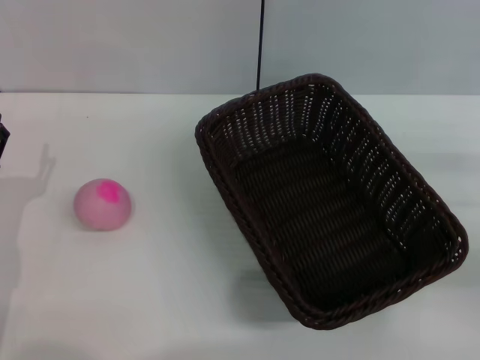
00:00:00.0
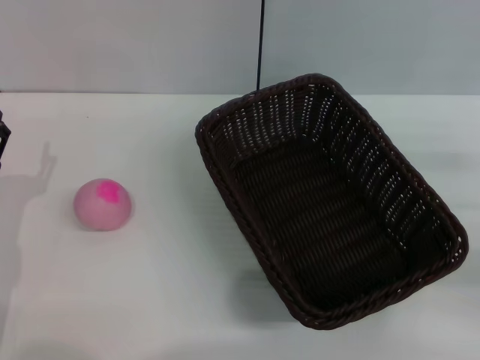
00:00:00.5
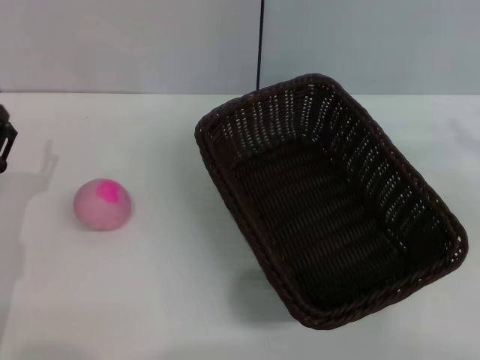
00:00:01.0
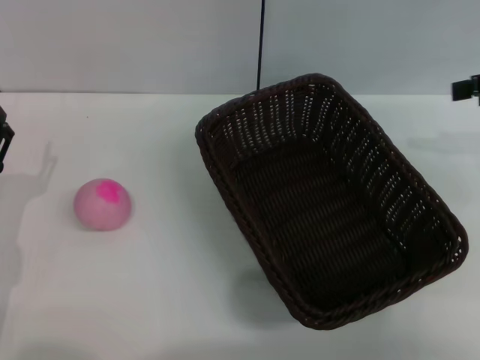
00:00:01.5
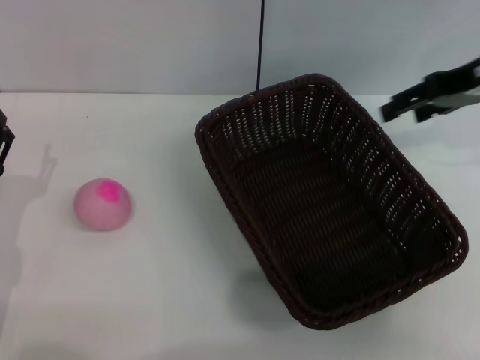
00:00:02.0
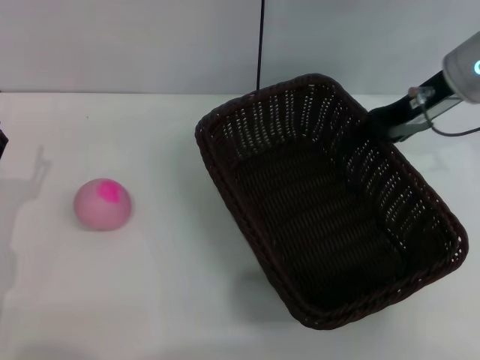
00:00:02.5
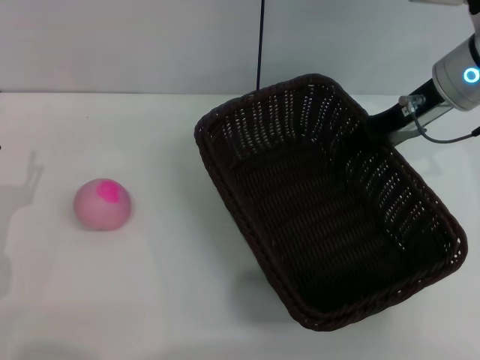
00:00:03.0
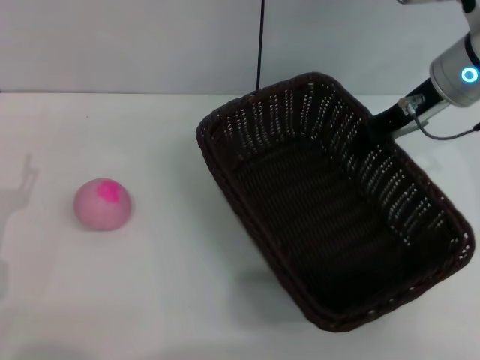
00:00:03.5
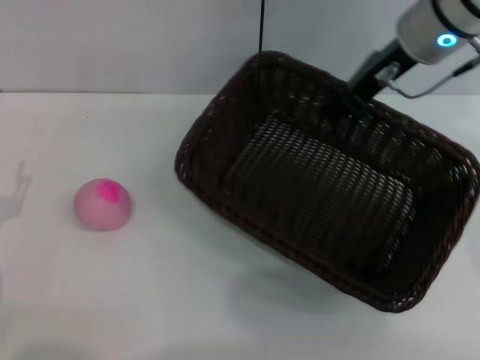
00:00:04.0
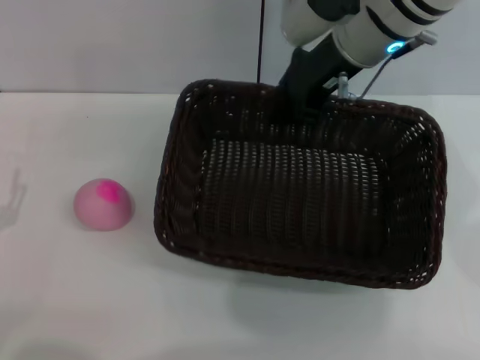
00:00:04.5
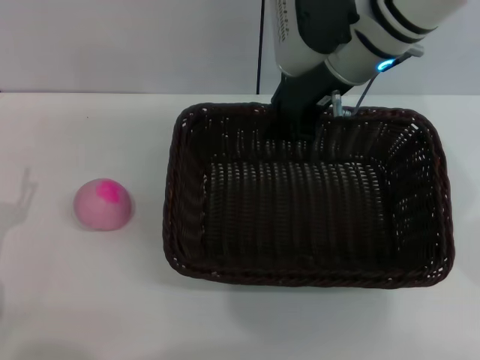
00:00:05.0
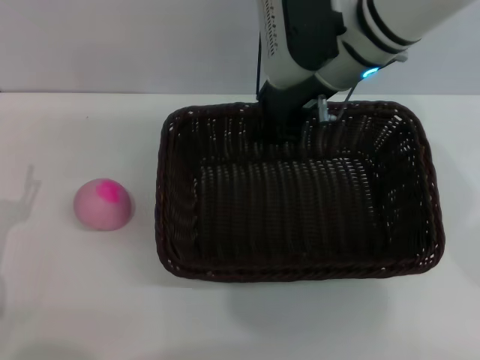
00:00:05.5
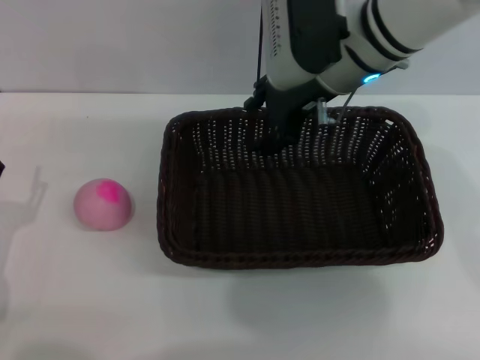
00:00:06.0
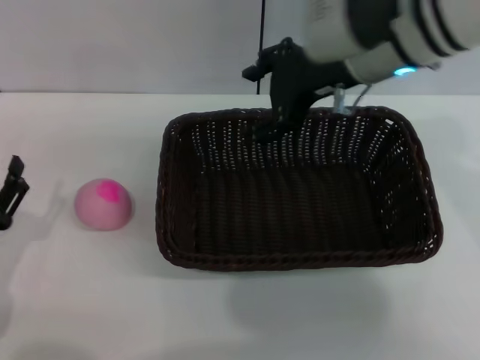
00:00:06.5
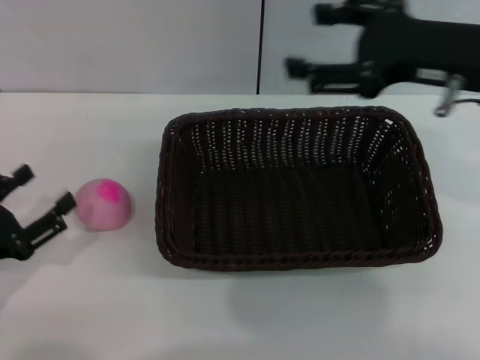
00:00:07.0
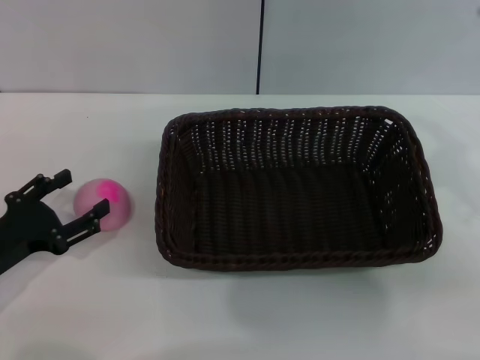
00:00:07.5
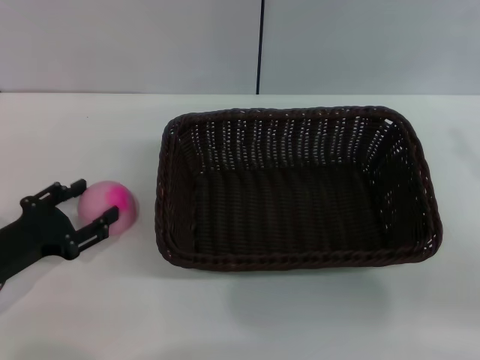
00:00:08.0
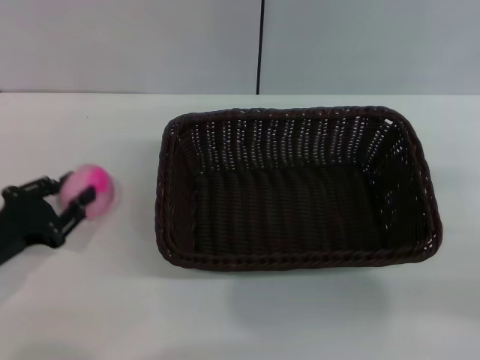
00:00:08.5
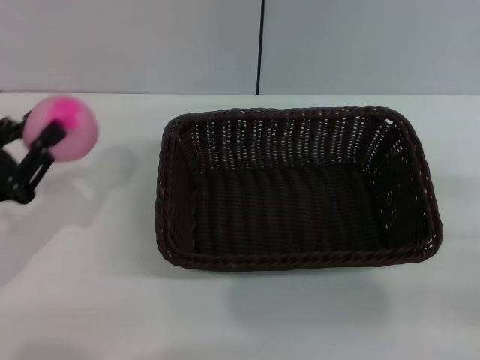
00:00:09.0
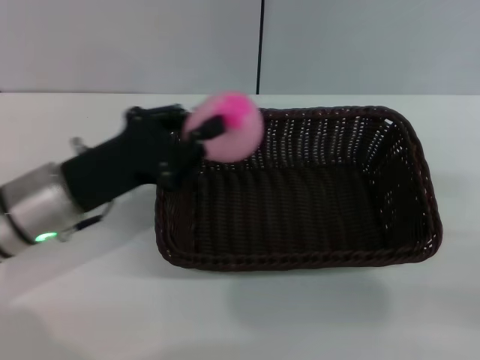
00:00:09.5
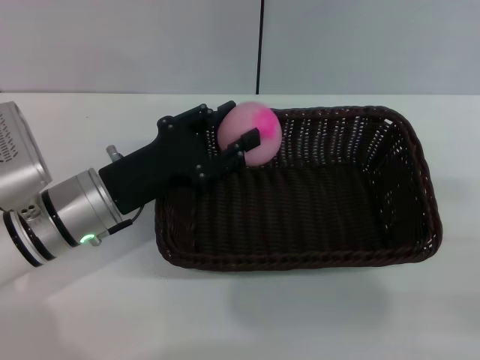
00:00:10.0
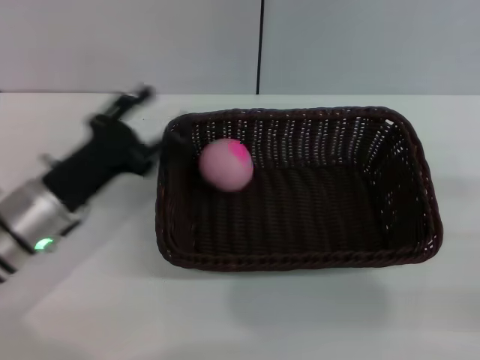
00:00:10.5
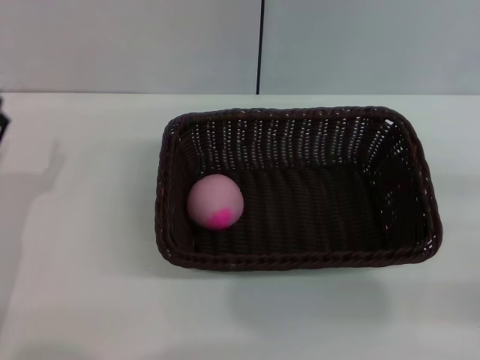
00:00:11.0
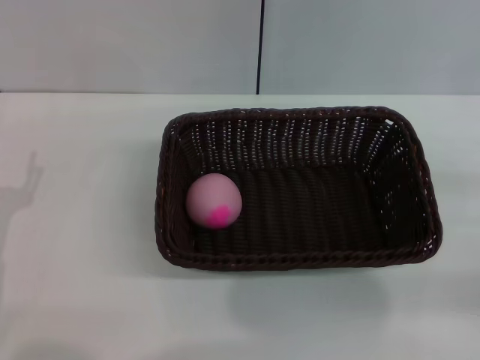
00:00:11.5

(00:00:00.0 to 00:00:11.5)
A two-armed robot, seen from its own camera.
Step, 00:00:00.0 - 00:00:03.5: Pick up the dark basket with the right gripper.
Step, 00:00:04.0 - 00:00:06.0: Place the dark basket in the center of view with the right gripper.
Step, 00:00:06.5 - 00:00:08.5: Pick up the peach with the left gripper.
Step, 00:00:09.0 - 00:00:10.5: Place the peach into the basket with the left gripper.
00:00:00.0 - 00:00:02.0: The right gripper travels forward, upward and to the left by about 25 cm.
00:00:02.0 - 00:00:04.0: The right gripper heads to the left, covering roughly 10 cm, and closes up.
00:00:04.0 - 00:00:06.0: The right gripper goes roughly 5 cm to the left, and opens its fingers.
00:00:06.0 - 00:00:07.5: The right gripper moves to the right and backward, about 25 cm, and opens up.
00:00:07.5 - 00:00:09.5: The left gripper goes approximately 15 cm to the right, forward and upward, and closes up. Meanwhile the right gripper moves downward and to the right, approximately 10 cm.
00:00:09.5 - 00:00:11.5: The left gripper heads to the left, backward and downward, covering some 15 cm, and opens its fingers.

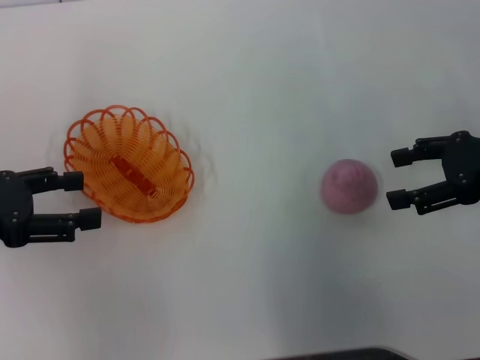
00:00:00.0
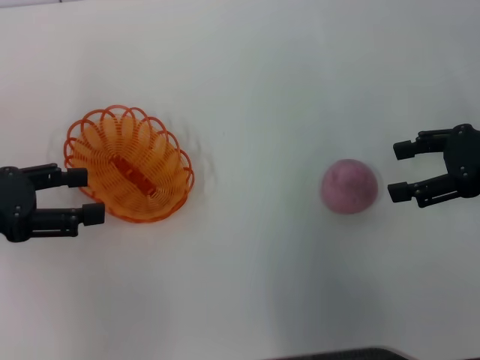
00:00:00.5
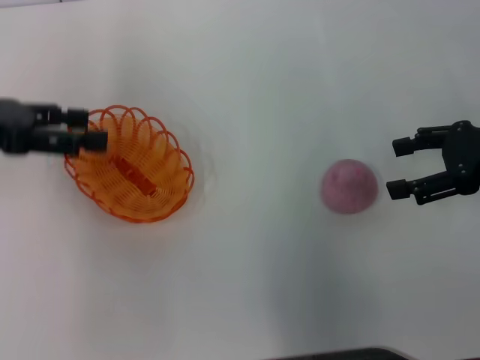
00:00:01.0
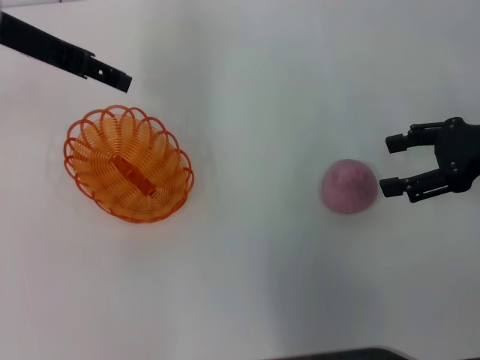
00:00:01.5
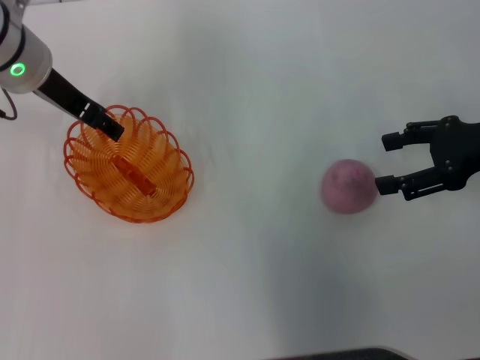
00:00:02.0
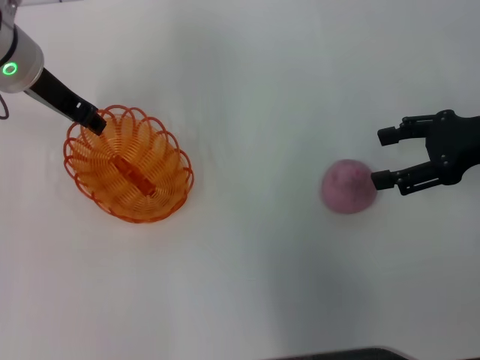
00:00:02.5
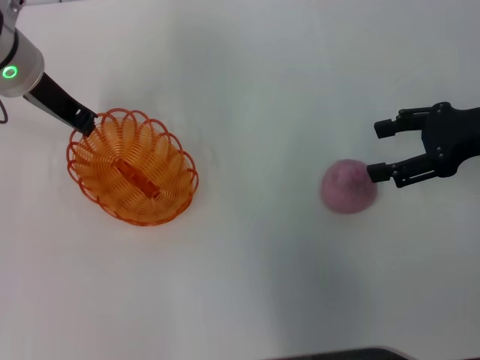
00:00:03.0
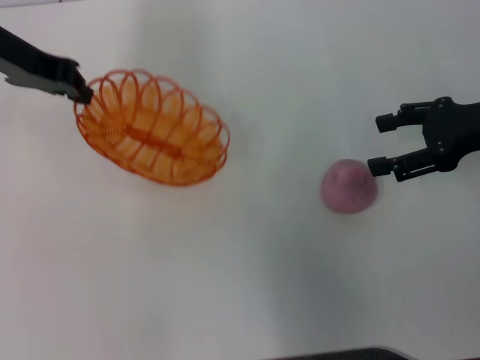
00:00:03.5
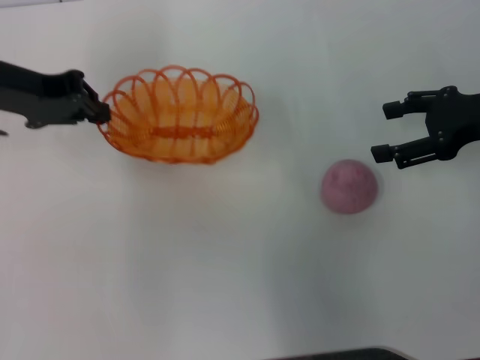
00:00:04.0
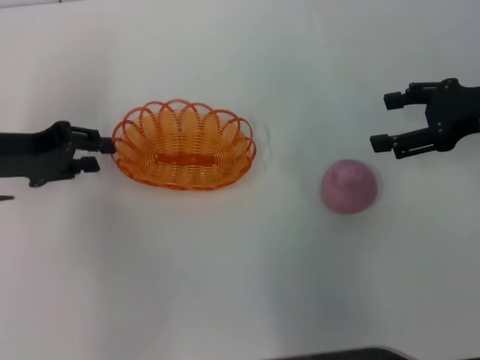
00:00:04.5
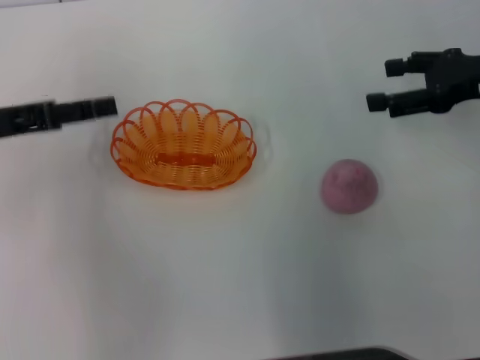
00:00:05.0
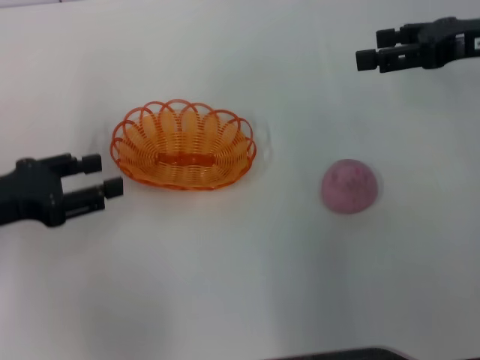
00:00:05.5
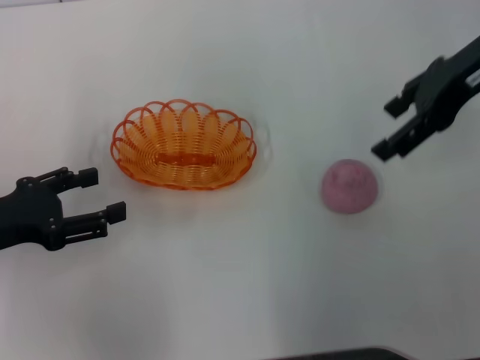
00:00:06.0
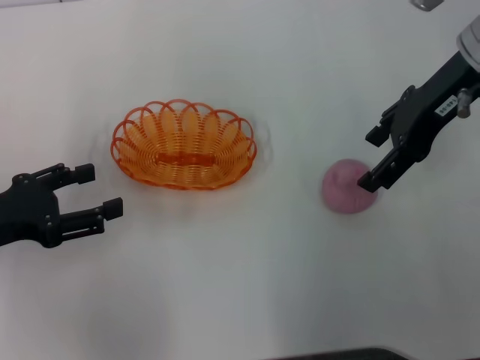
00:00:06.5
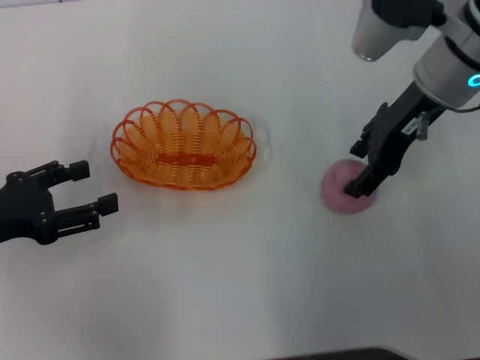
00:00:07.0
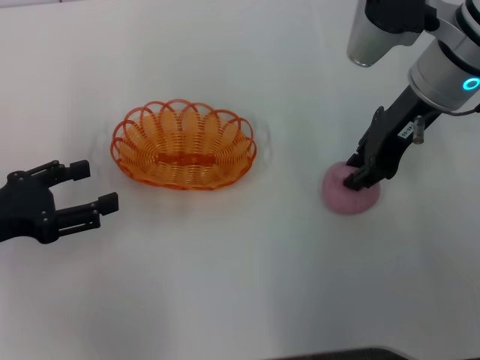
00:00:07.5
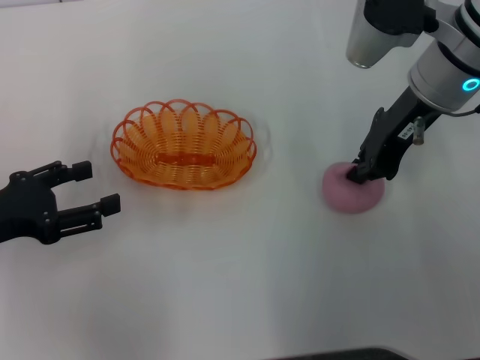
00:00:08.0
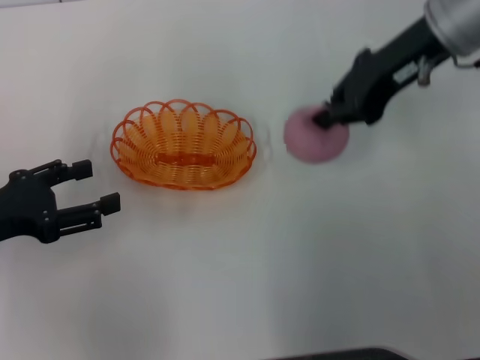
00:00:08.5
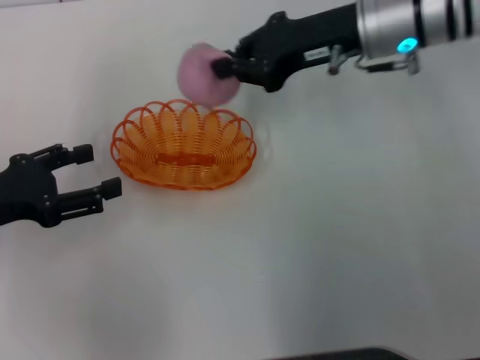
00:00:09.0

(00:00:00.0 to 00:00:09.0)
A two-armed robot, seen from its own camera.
Step, 00:00:00.0 - 00:00:03.0: Pick up the basket with the left gripper.
Step, 00:00:04.0 - 00:00:05.0: Place the basket in the center of view with the left gripper.
Step, 00:00:05.5 - 00:00:08.0: Pick up the peach with the right gripper.
00:00:00.0 - 00:00:02.0: The left gripper moves forward and to the right, roughly 20 cm.
00:00:02.0 - 00:00:04.5: The left gripper goes some 15 cm to the left, backward and downward, and closes up.
00:00:04.5 - 00:00:07.0: The right gripper moves to the left, some 15 cm. The left gripper heads backward, covering approximately 10 cm, and opens its fingers.
00:00:07.0 - 00:00:09.0: The right gripper closes up.

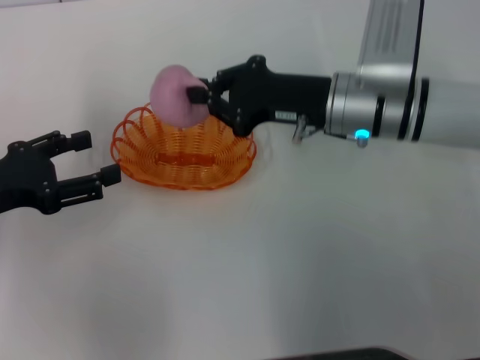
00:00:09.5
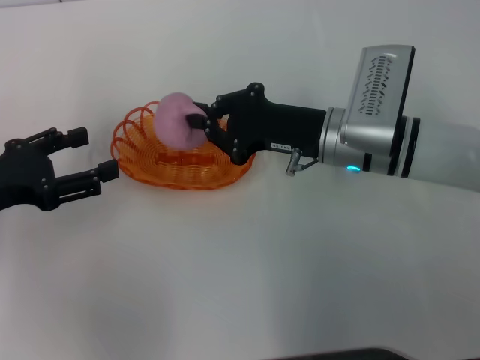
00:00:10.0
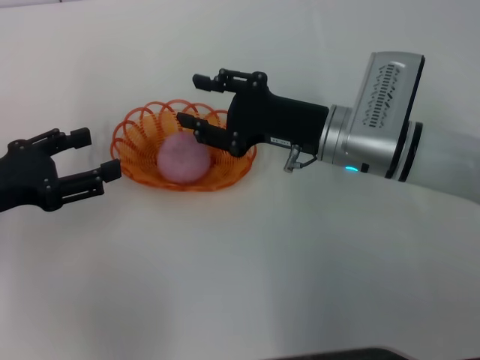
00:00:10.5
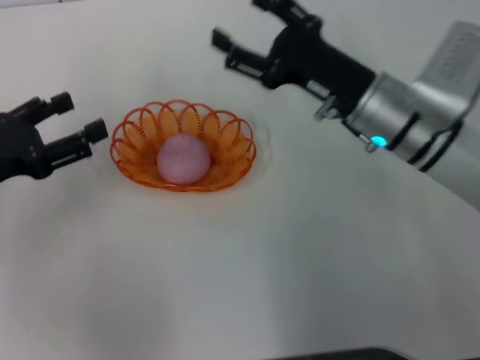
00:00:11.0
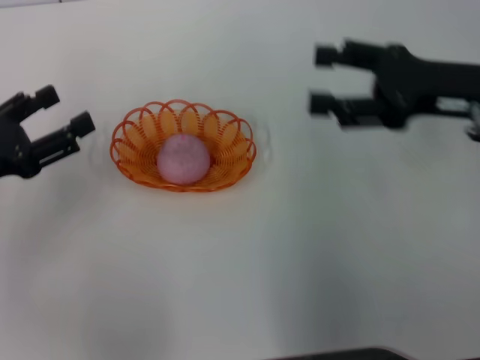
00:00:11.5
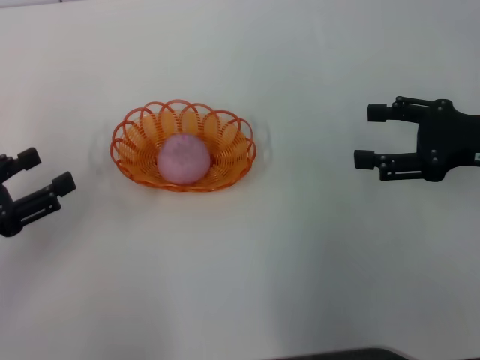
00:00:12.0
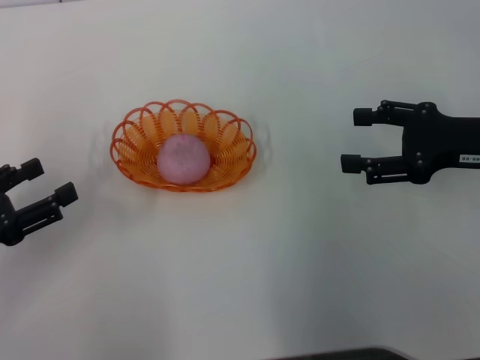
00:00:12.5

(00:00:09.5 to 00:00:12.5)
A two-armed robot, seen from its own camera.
00:00:09.5 - 00:00:11.0: The right gripper opens.
00:00:11.0 - 00:00:12.5: The right gripper goes about 15 cm to the right. Meanwhile the left gripper shifts approximately 5 cm backward.
